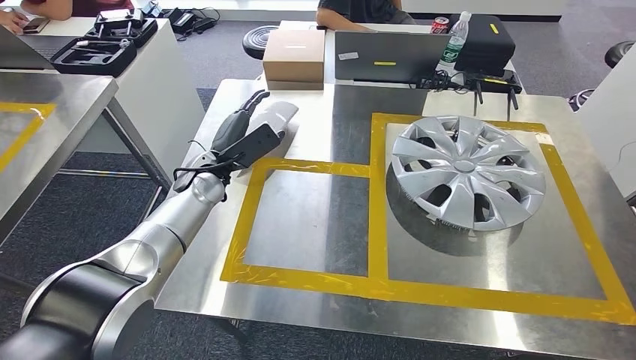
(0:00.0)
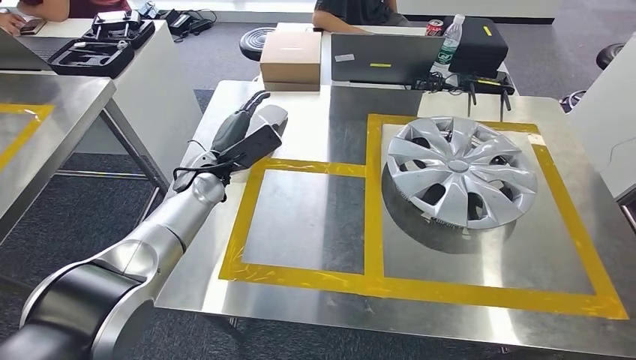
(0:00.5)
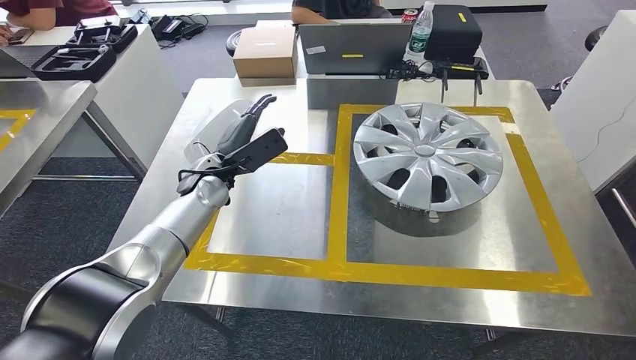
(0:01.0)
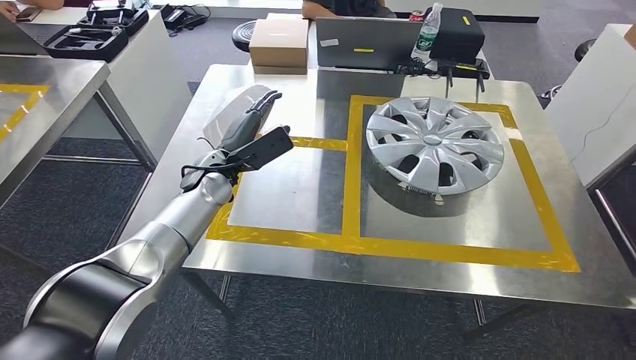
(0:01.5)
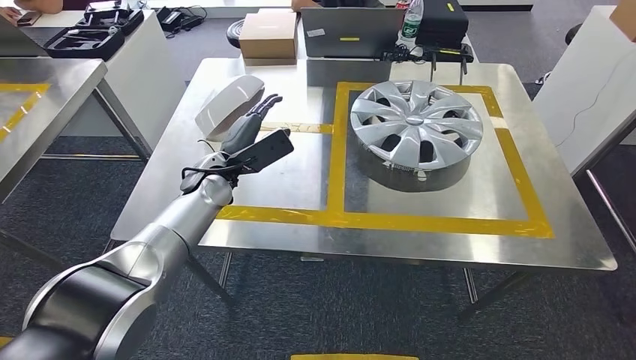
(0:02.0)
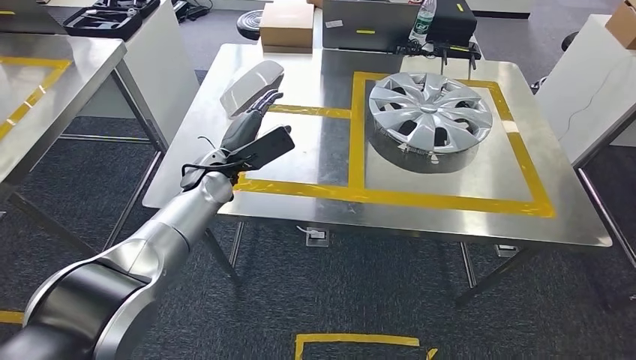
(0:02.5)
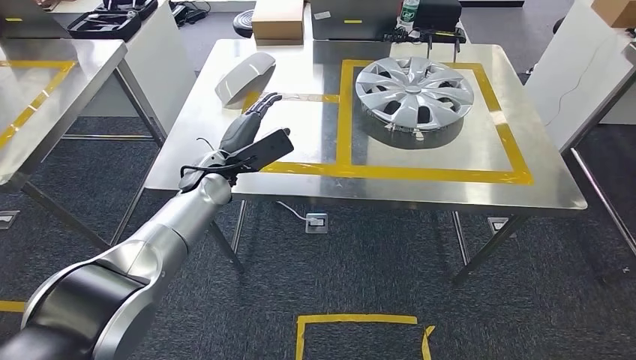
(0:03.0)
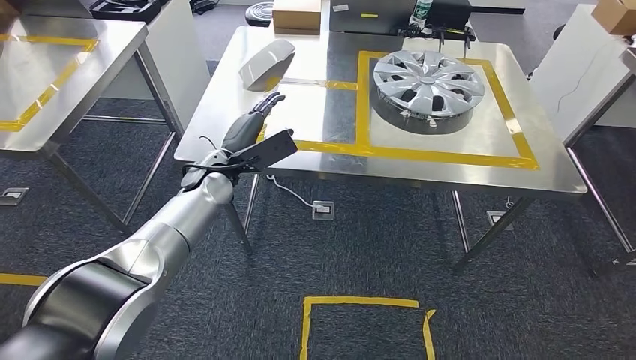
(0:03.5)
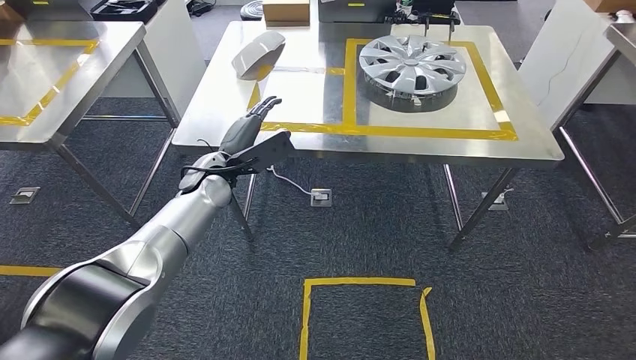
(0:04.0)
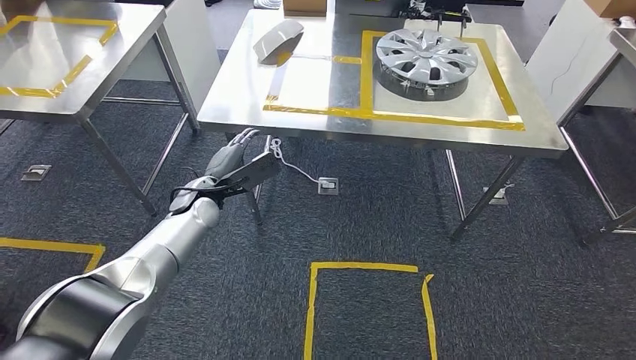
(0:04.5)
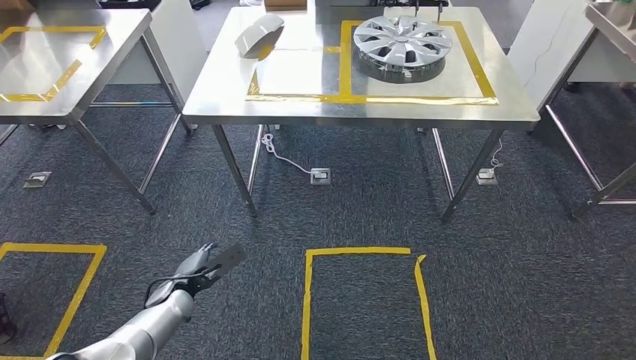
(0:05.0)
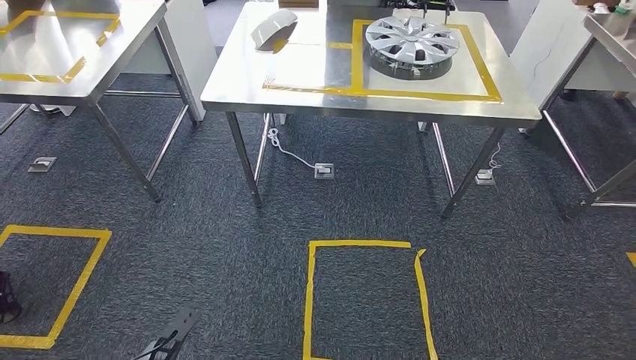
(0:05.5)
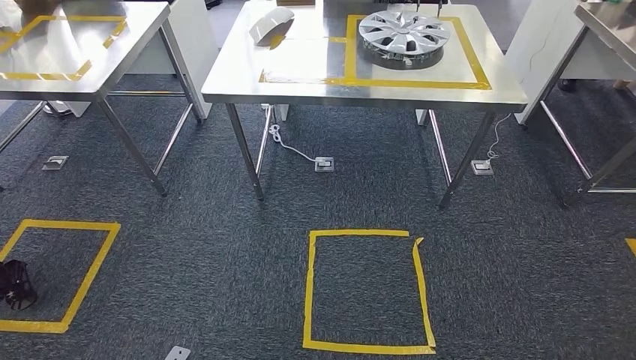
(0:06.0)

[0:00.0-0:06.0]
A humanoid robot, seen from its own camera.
Step, 0:01.5 to 0:06.0: Move to the initial position of the shelf.
